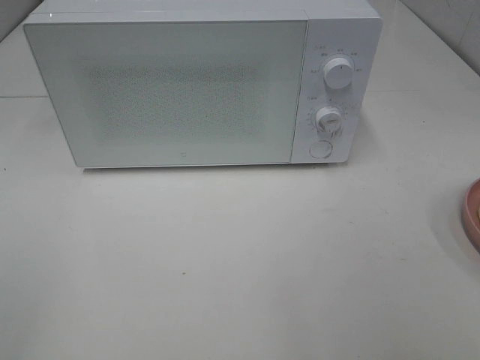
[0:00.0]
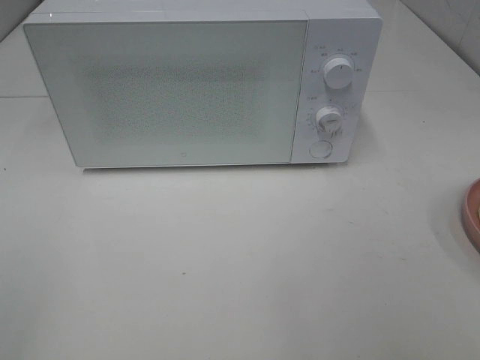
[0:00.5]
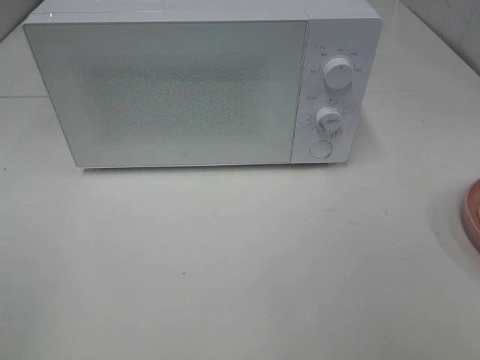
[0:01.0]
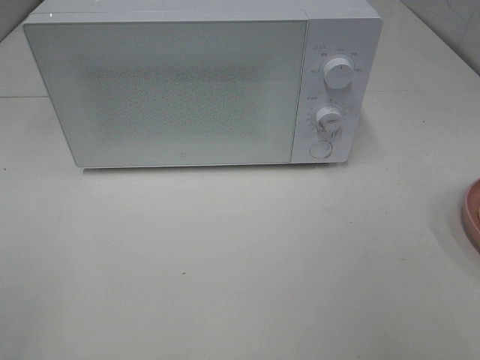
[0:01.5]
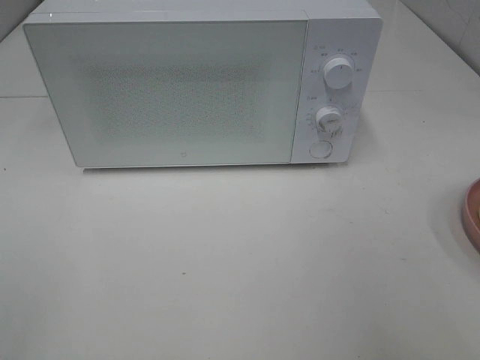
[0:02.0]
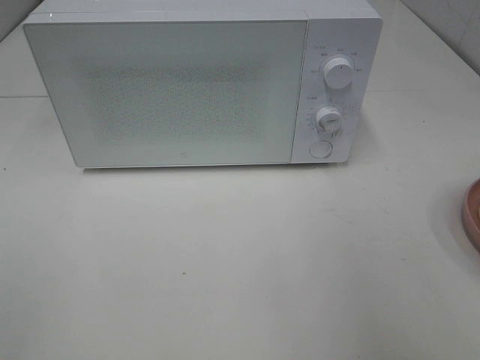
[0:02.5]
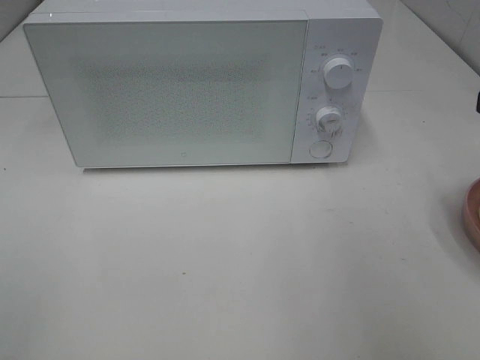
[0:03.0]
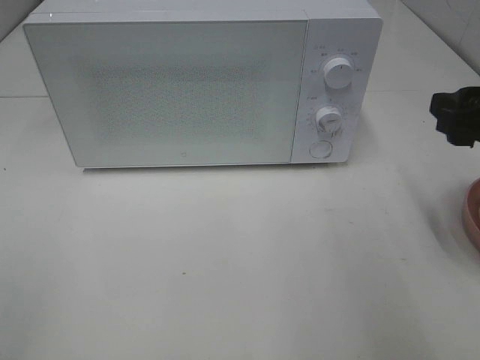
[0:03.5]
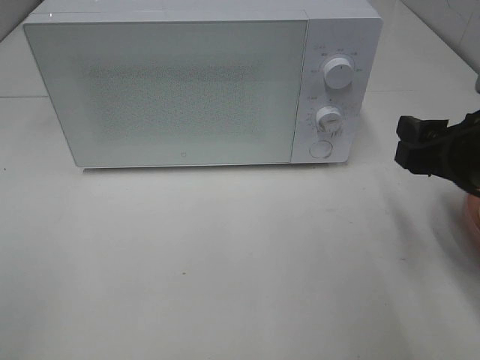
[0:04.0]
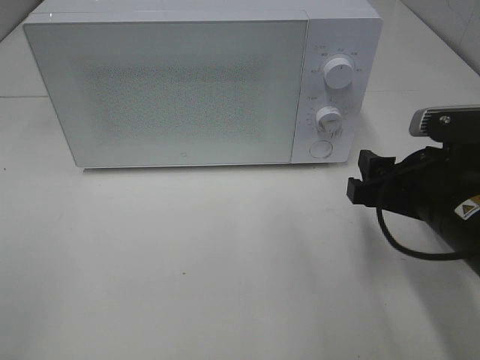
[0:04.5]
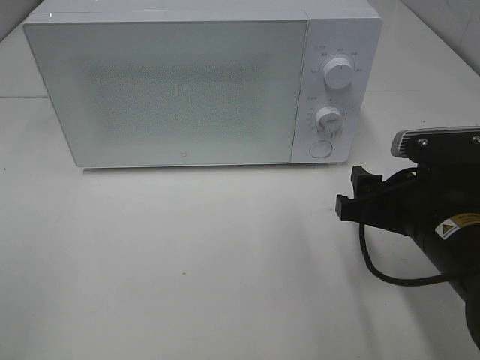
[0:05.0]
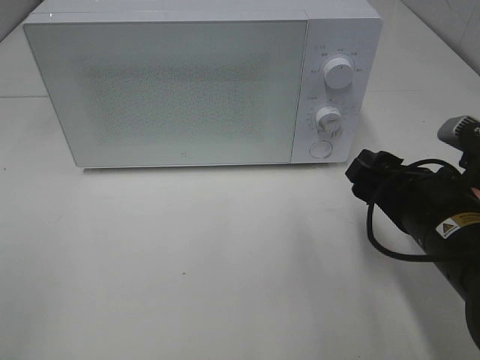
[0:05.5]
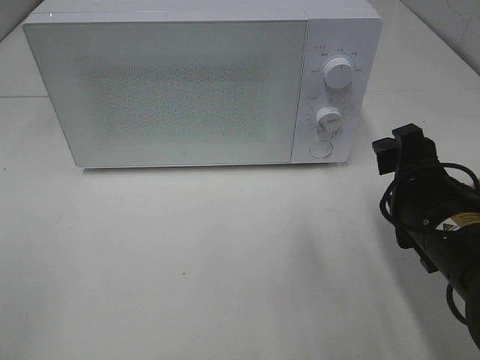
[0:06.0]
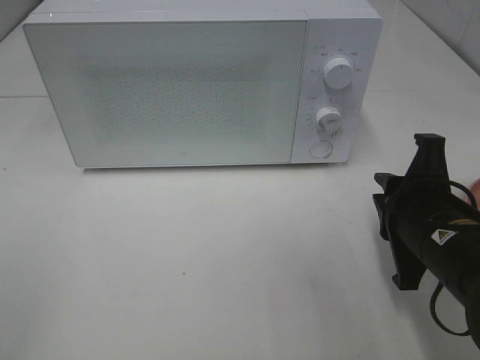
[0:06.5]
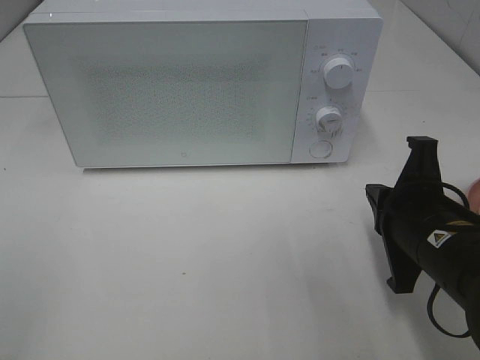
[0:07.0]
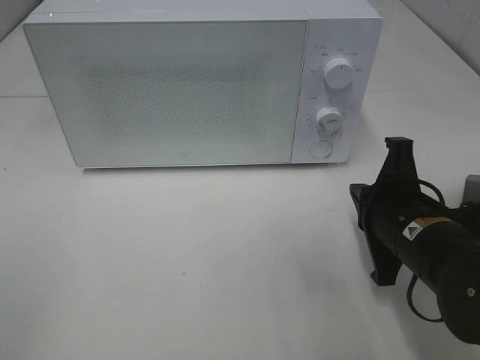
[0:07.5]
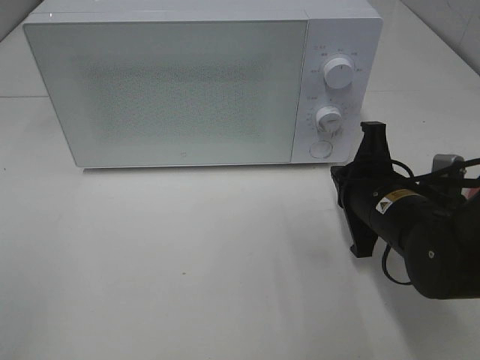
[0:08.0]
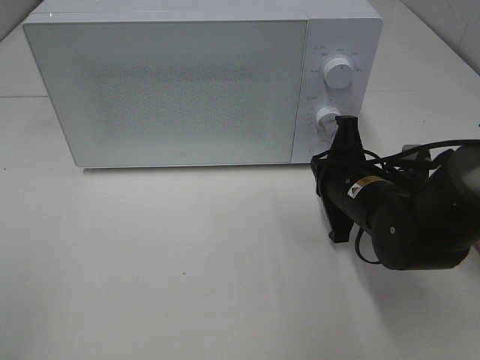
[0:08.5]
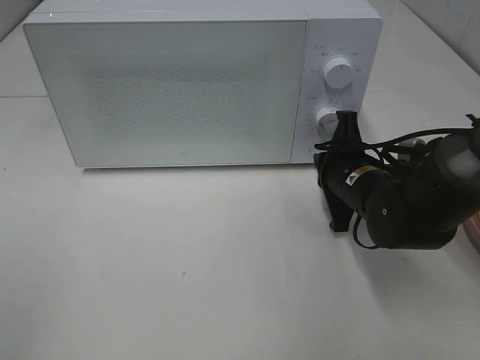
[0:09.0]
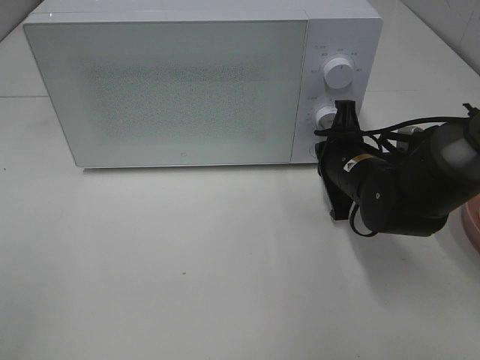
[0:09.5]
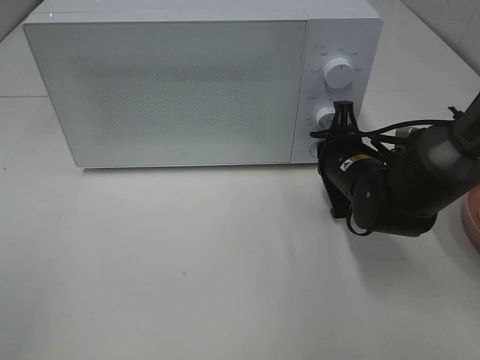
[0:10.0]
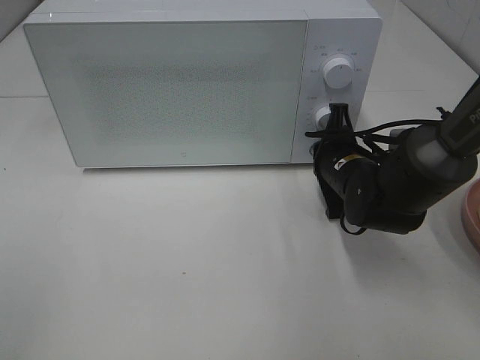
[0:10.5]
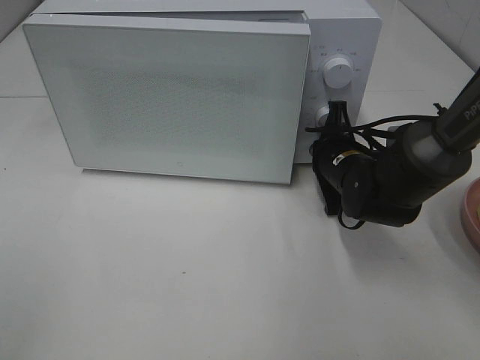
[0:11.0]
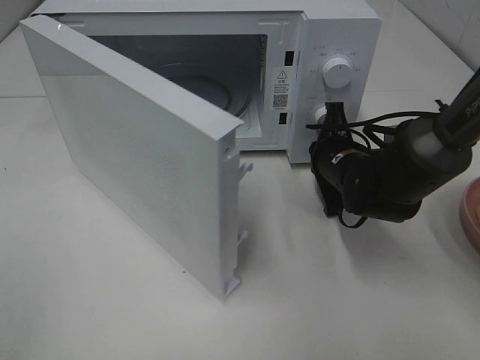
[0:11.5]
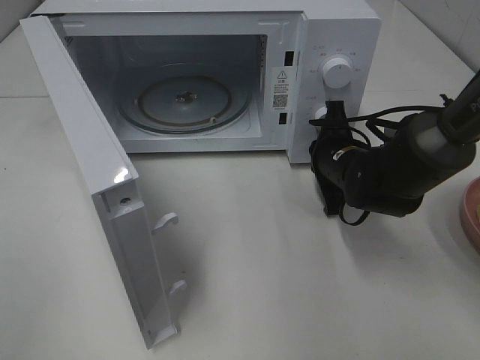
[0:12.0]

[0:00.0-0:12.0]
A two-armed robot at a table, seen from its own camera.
Task of the whole recording: Heat Sandwich.
0:02.0 to 0:04.0: The right gripper shifts some 15 cm downward, forward and to the left.
0:04.0 to 0:06.0: The right gripper heads downward and to the left, covering about 5 cm.
0:06.0 to 0:08.0: The right gripper heads forward, covering about 5 cm, and closes its fingers.
0:08.0 to 0:10.0: The right gripper is displaced forward by approximately 10 cm.

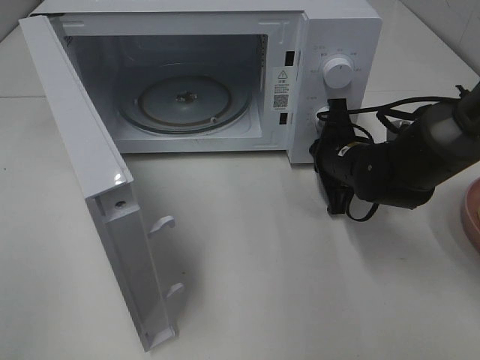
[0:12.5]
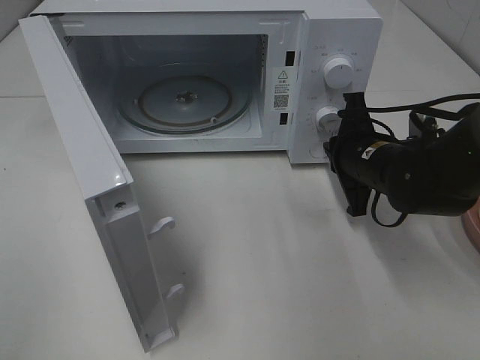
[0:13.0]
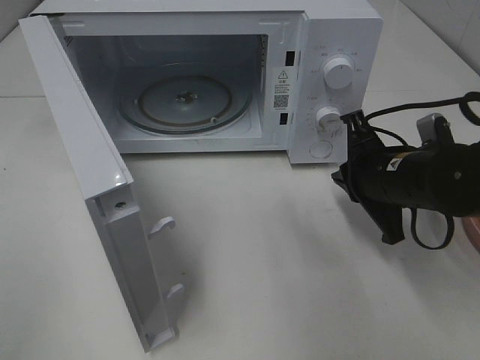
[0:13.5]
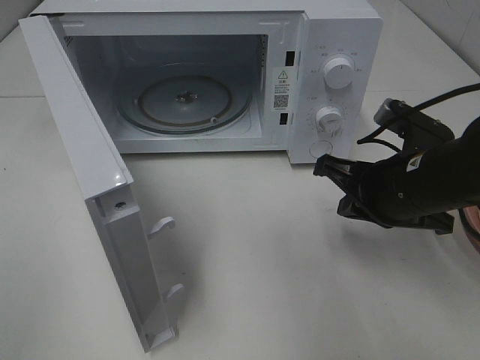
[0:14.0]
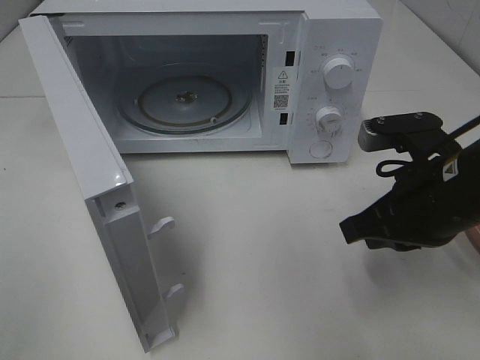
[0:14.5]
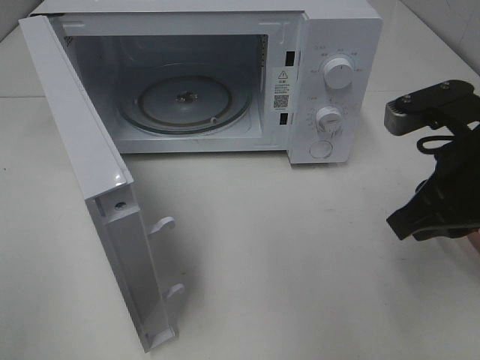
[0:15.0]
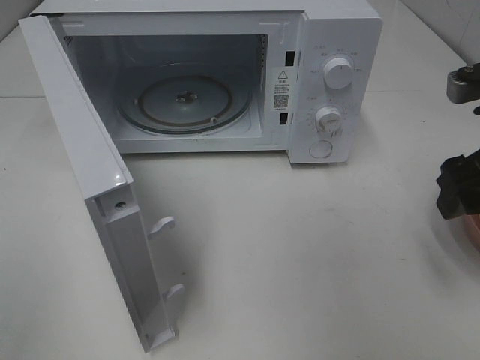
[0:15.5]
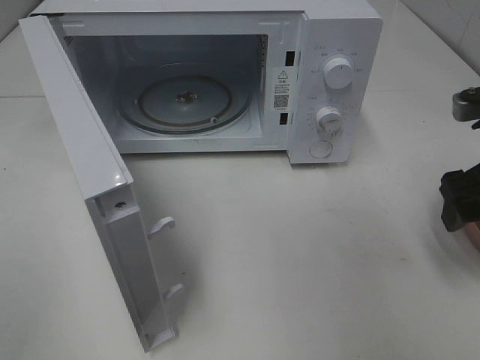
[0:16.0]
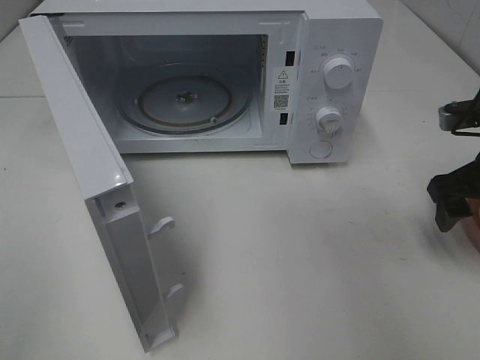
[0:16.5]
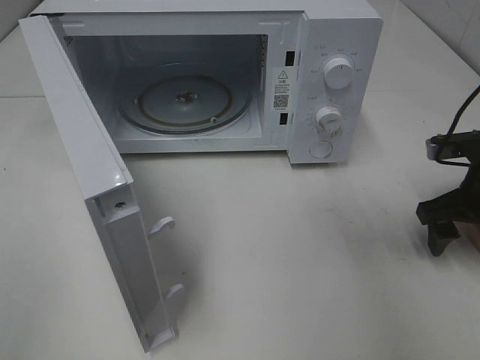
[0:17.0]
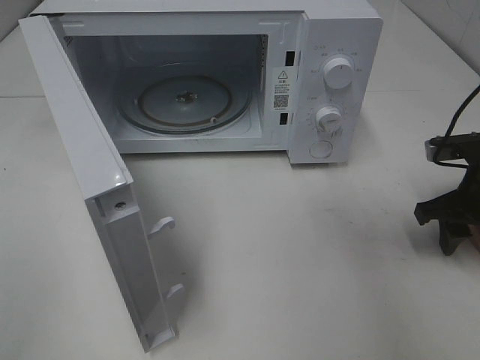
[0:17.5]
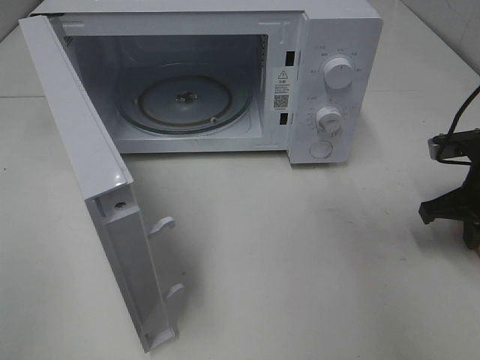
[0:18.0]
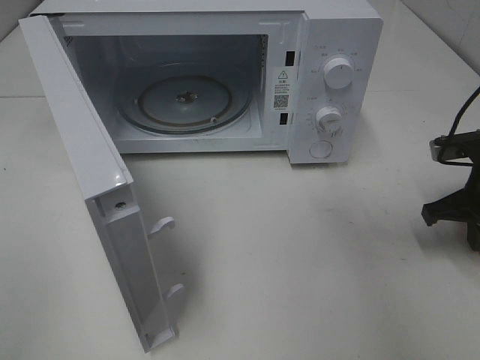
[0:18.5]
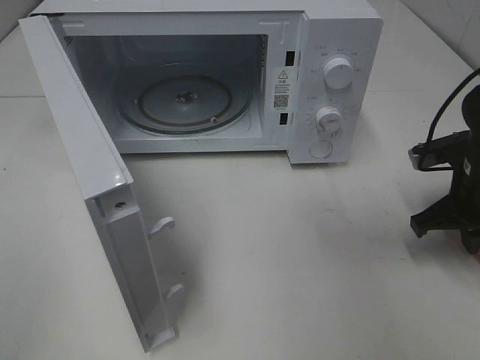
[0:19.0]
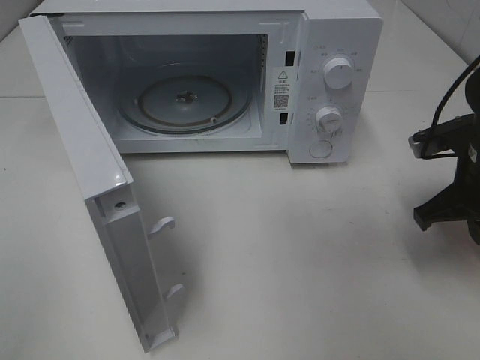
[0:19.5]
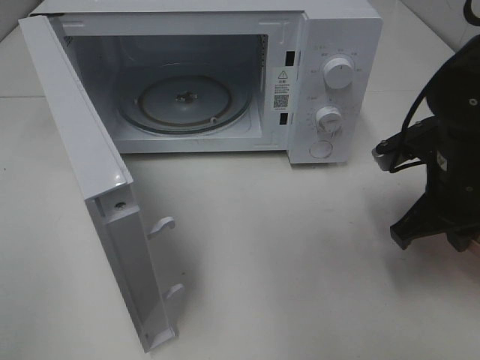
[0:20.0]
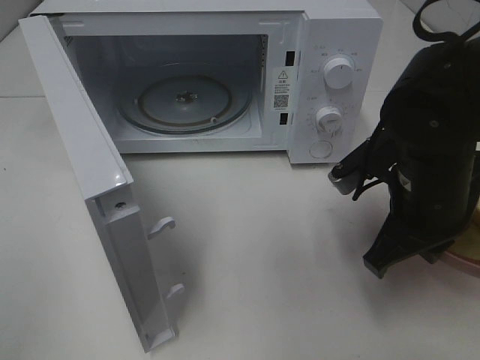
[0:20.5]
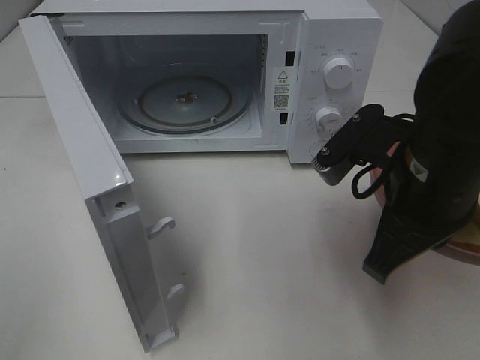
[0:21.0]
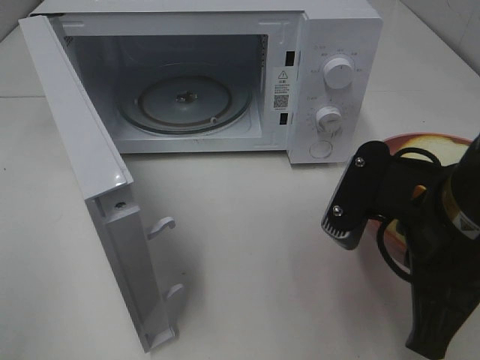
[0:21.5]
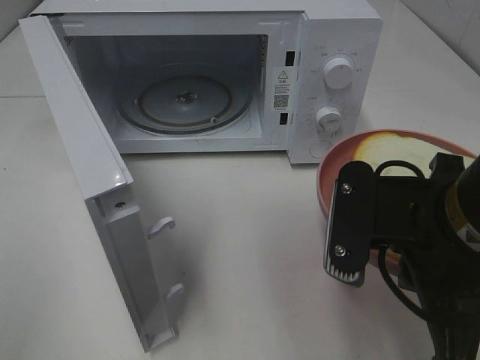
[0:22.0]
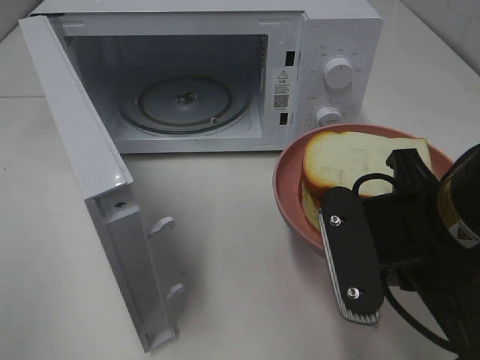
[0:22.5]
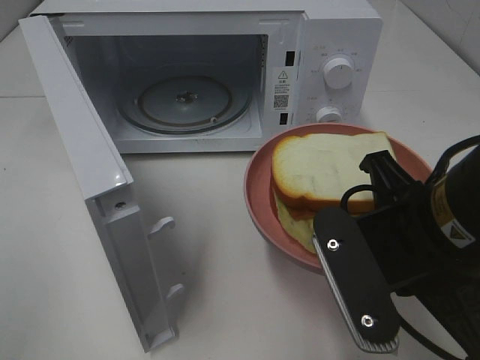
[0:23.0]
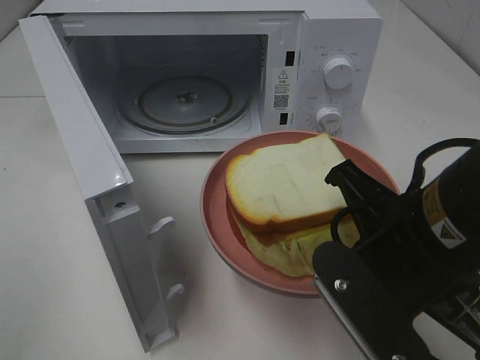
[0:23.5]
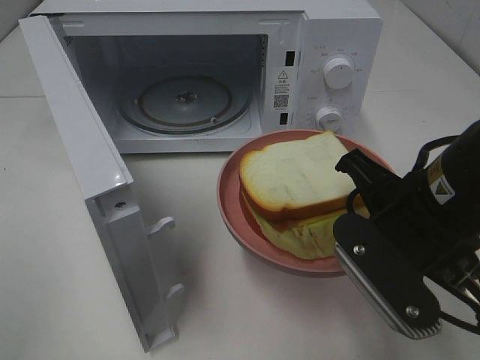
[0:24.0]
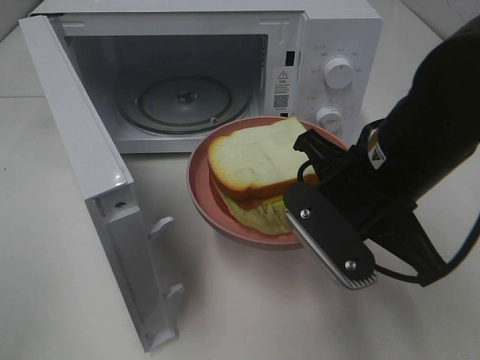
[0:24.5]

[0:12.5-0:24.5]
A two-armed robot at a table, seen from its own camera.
Task of the whole recording: Heat Sandwich.
Step, 0:13.5 to 0:19.0: Right hand: grab the plate with the sandwich.
0:12.5 to 0:14.5: The right gripper goes about 15 cm backward and upward.
0:14.5 to 0:16.5: The right gripper heads to the right and forward, covering approximately 10 cm, and opens up.
0:16.5 to 0:18.5: The right gripper closes up.
0:18.5 to 0:20.5: The right gripper is displaced to the left and backward by some 15 cm.
0:20.5 to 0:22.5: The right gripper travels backward and upward by about 10 cm.
0:22.5 to 0:24.5: The right gripper moves forward, about 5 cm.

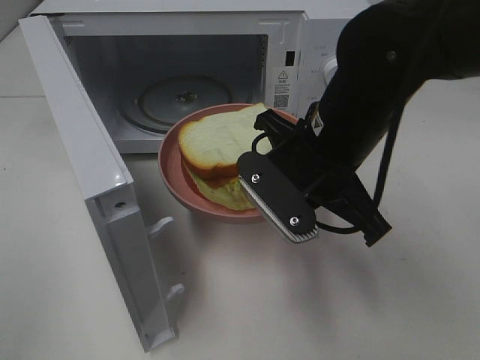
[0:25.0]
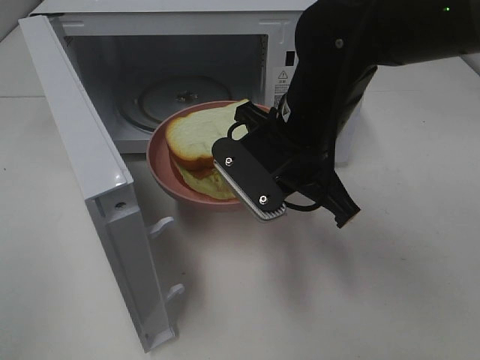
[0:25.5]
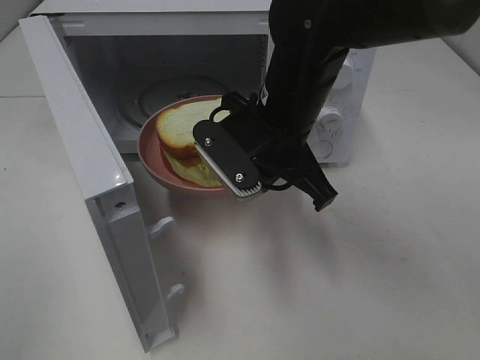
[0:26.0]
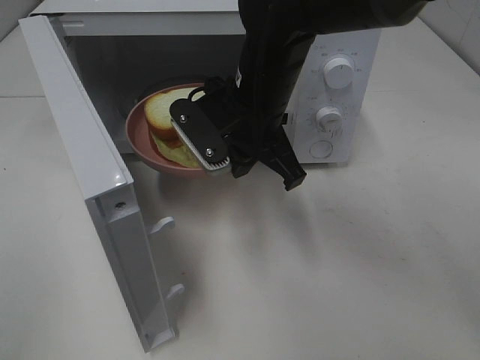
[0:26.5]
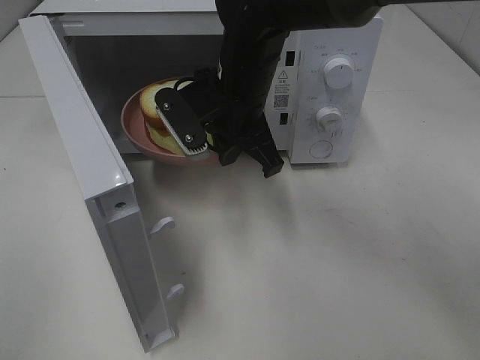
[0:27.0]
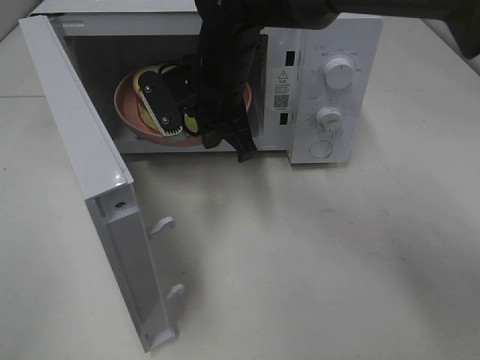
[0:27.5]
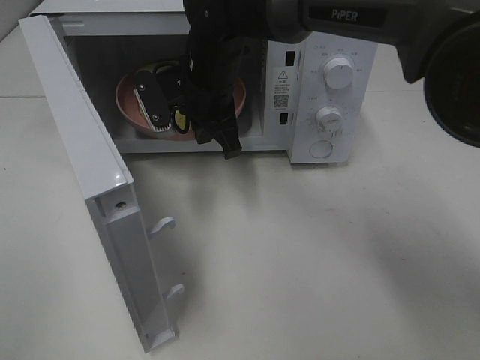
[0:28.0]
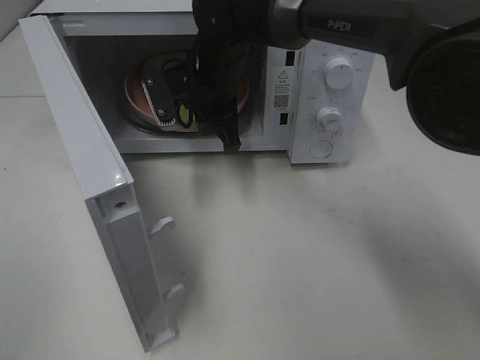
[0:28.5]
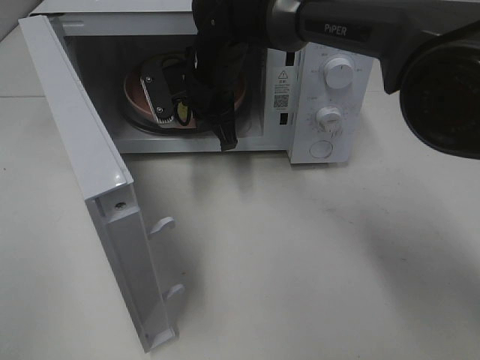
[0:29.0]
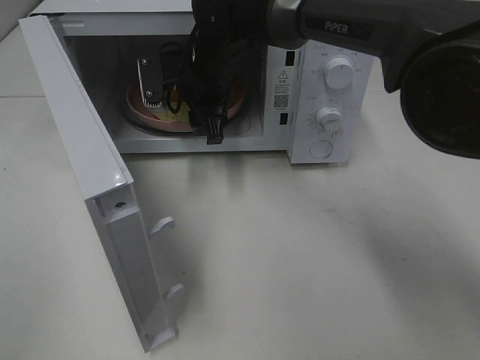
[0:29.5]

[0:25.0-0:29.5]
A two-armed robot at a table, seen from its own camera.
Task of the whole recording: Heat Sandwich.
0:25.0 to 0:27.0: The right gripper travels forward and to the left by roughly 10 cm.
0:27.0 to 0:29.5: The right gripper travels forward by some 10 cm, and opens.
